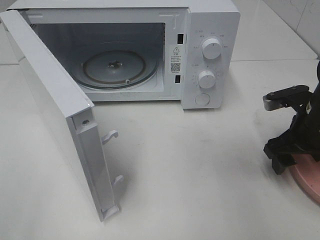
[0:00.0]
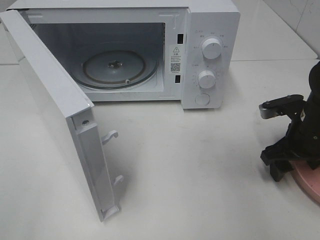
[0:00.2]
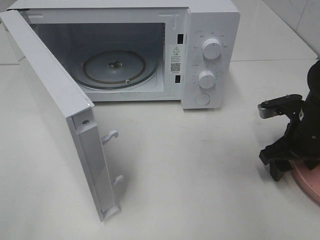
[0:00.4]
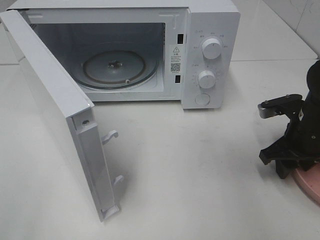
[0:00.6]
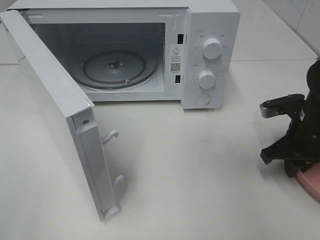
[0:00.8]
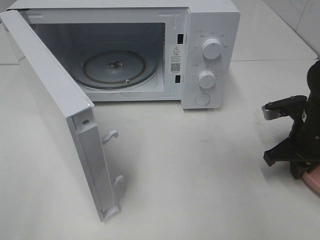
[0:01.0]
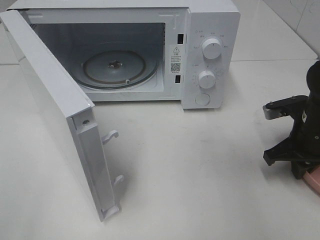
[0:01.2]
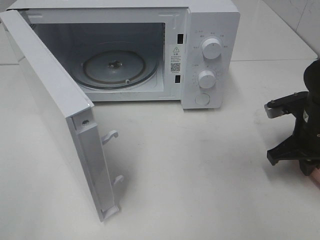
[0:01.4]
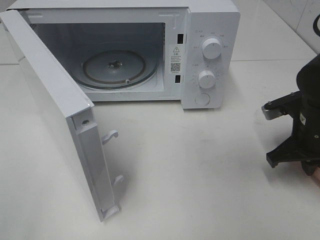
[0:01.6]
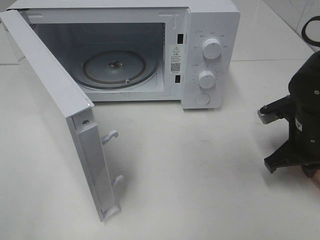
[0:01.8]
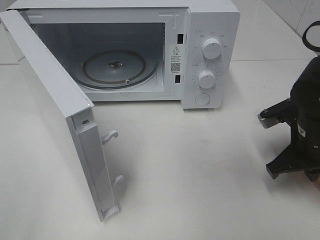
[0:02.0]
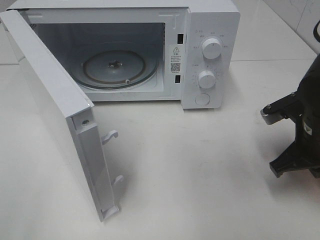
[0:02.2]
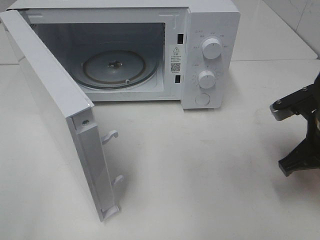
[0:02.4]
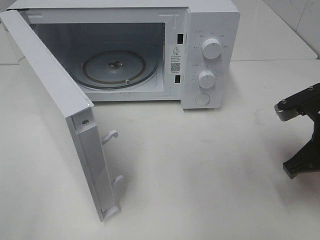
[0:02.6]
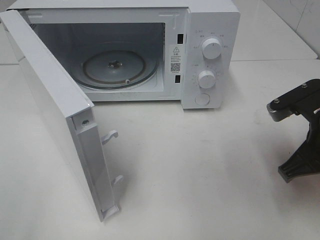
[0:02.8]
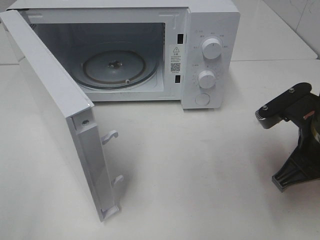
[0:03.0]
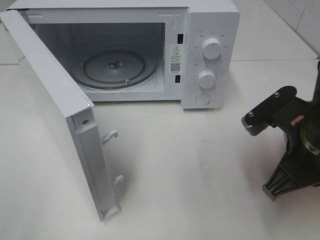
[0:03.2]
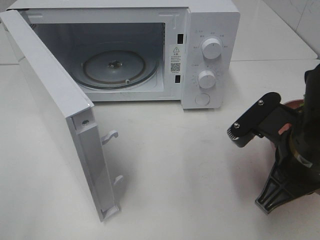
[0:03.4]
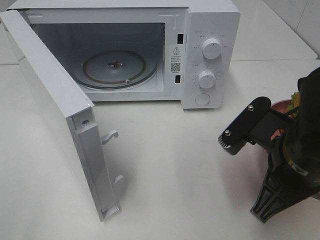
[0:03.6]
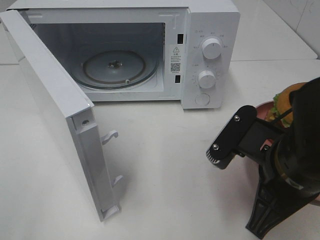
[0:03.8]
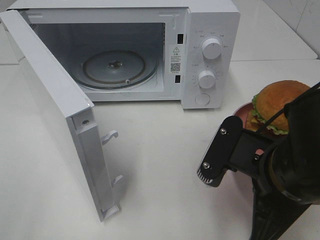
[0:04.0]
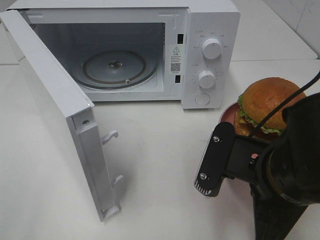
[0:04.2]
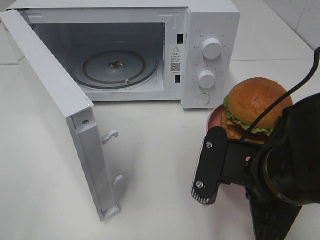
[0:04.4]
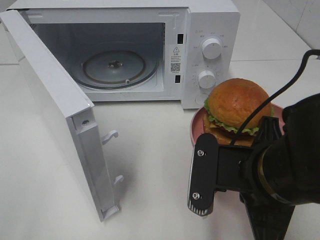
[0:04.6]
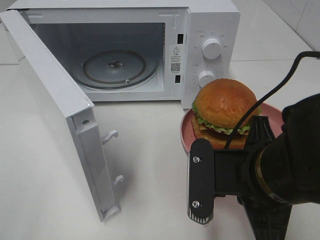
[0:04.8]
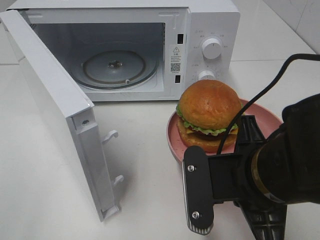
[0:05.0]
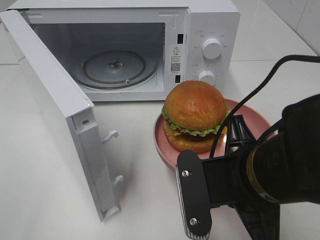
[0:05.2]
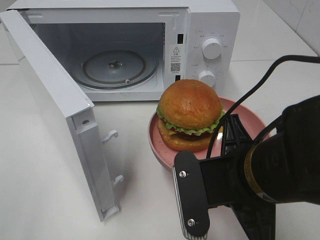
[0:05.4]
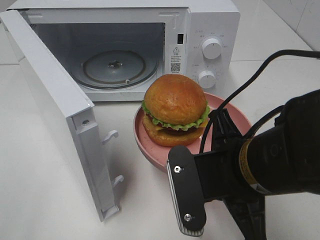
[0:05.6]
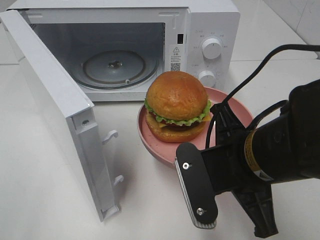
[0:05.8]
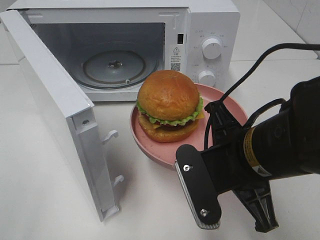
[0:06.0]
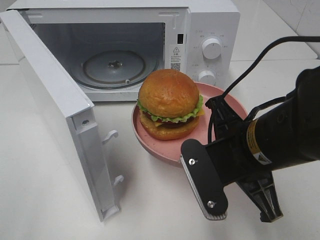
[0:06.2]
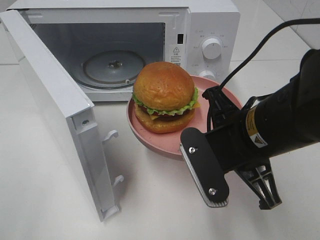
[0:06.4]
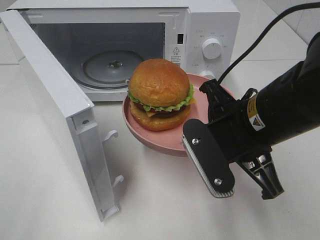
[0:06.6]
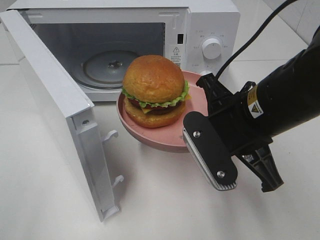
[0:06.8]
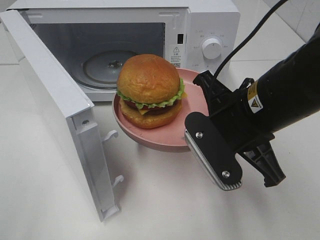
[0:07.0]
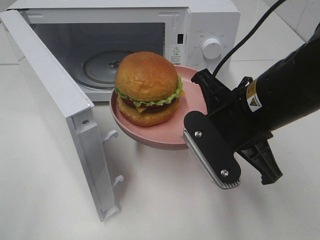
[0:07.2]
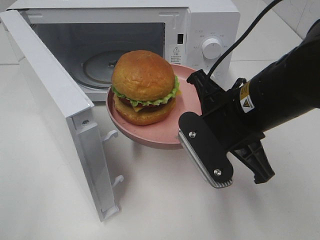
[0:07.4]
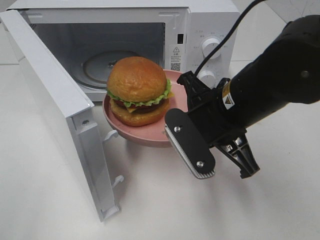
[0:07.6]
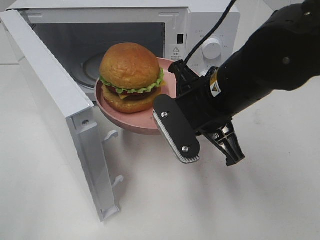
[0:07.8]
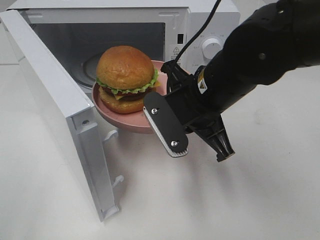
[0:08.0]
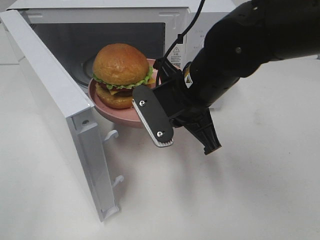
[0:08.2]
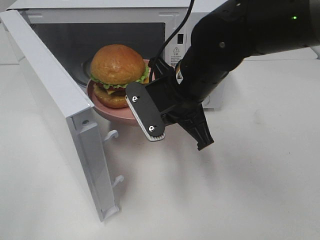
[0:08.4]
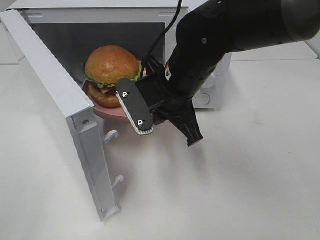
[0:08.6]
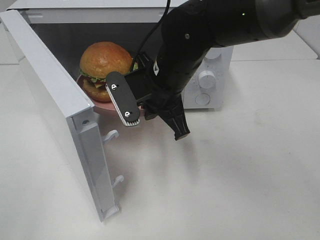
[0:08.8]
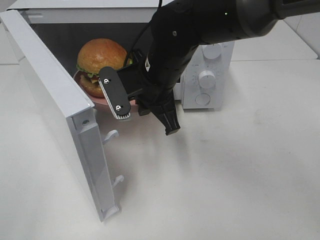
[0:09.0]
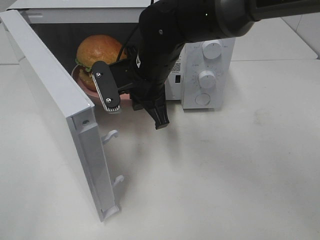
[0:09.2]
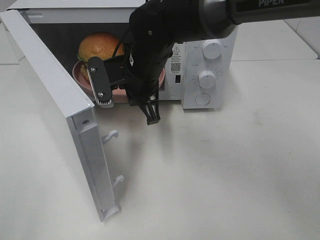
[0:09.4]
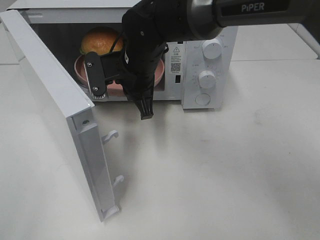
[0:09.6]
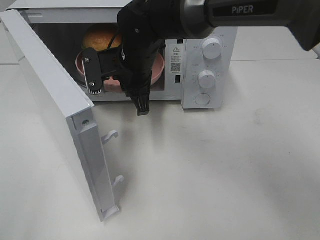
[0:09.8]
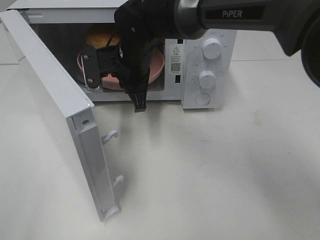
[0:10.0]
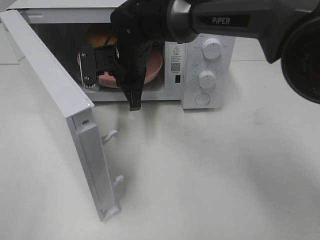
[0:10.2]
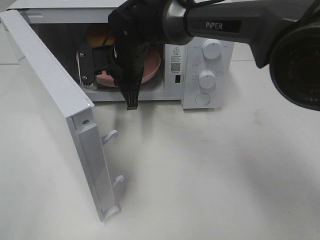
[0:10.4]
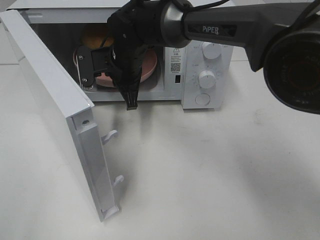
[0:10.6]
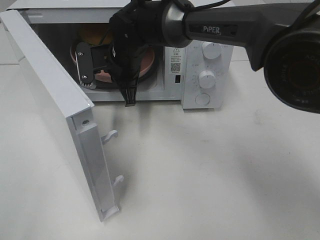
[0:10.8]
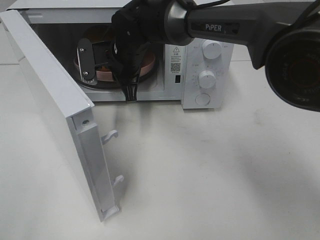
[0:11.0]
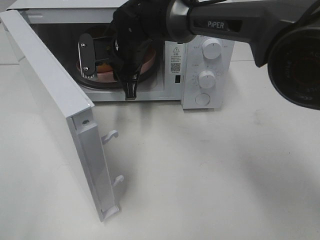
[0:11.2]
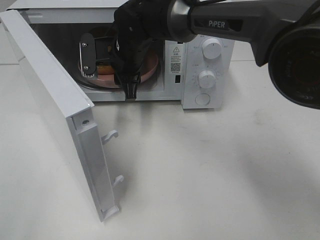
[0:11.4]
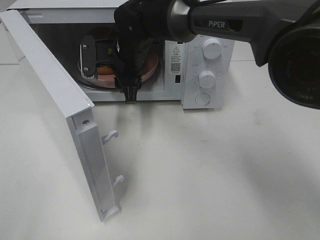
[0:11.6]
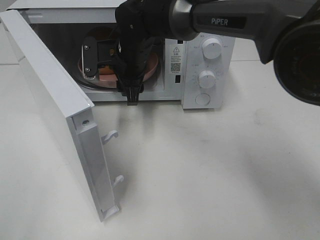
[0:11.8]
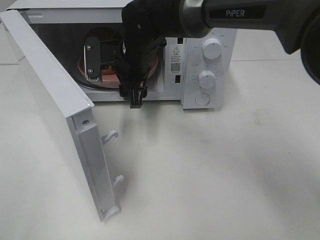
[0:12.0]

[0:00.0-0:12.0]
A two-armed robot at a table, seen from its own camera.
Task of the whole recording: Heat the burger.
0:00.0 to 0:01.6: The right gripper closes.
0:01.6 to 0:03.0: The right gripper heads backward and upward, covering approximately 10 cm.
0:03.0 to 0:04.4: The right gripper travels to the left and backward by some 10 cm.
0:06.0 to 0:07.6: The right gripper shifts approximately 5 cm forward.
0:07.6 to 0:09.0: The right gripper goes roughly 15 cm forward and to the left.
0:09.0 to 0:10.4: The right gripper shifts roughly 10 cm forward and to the left.
0:10.4 to 0:12.0: The right gripper opens.

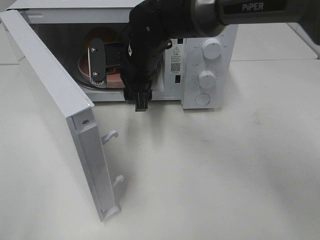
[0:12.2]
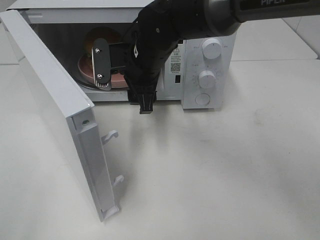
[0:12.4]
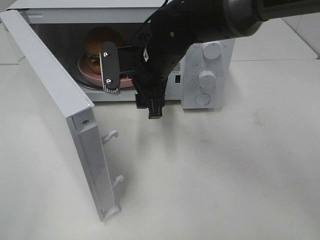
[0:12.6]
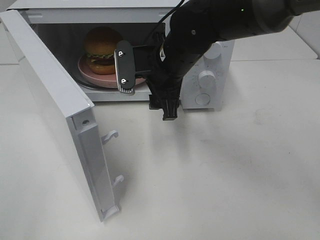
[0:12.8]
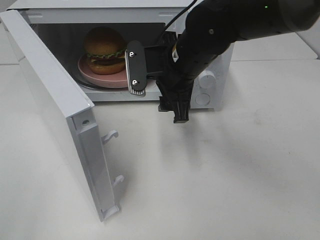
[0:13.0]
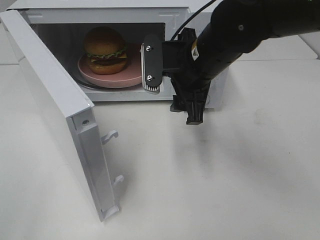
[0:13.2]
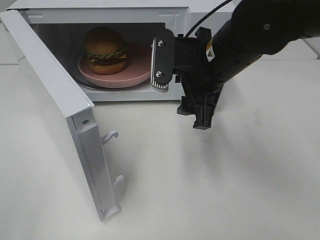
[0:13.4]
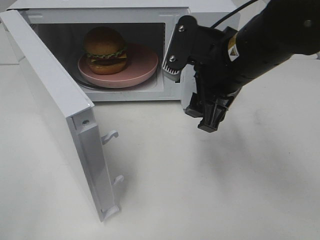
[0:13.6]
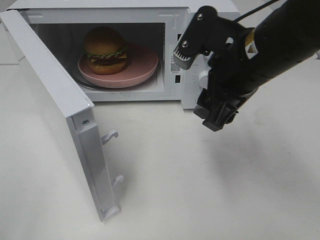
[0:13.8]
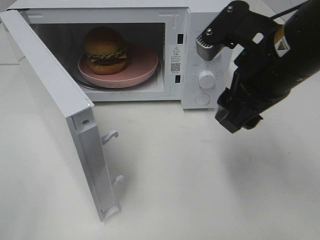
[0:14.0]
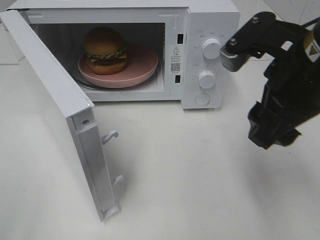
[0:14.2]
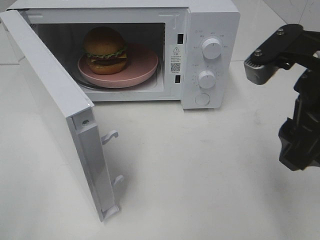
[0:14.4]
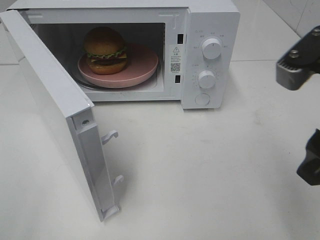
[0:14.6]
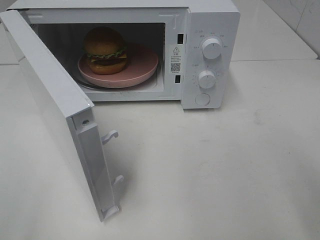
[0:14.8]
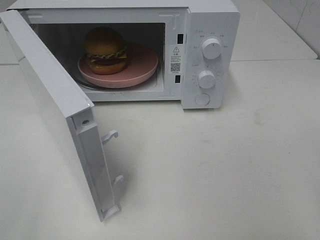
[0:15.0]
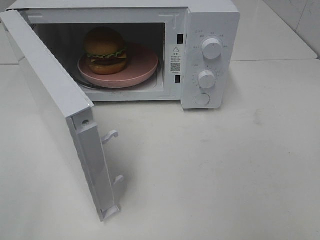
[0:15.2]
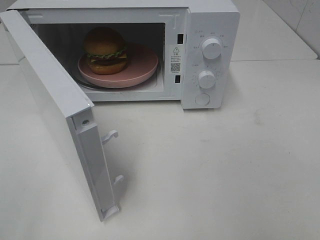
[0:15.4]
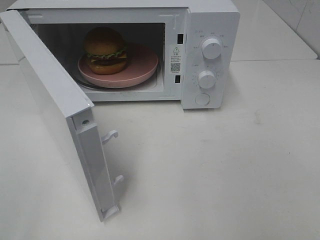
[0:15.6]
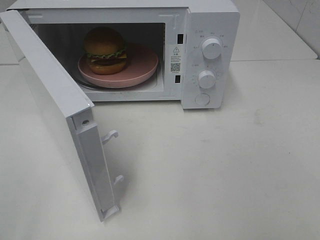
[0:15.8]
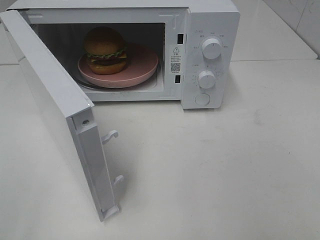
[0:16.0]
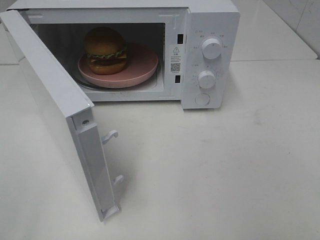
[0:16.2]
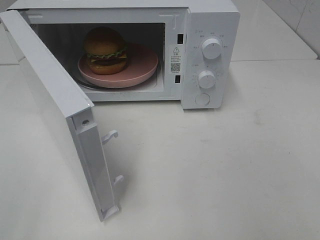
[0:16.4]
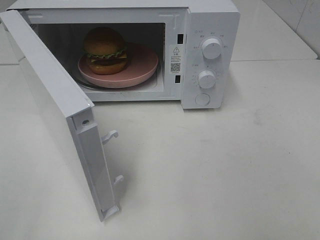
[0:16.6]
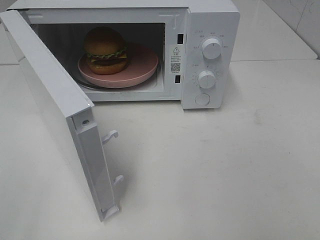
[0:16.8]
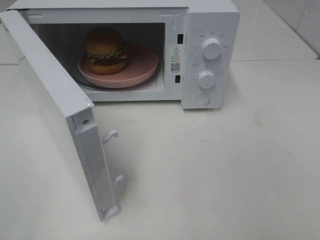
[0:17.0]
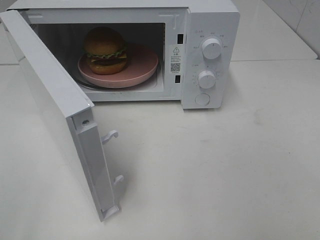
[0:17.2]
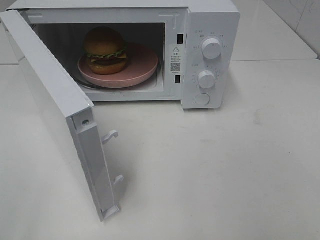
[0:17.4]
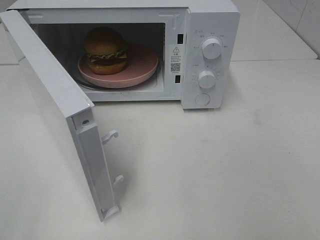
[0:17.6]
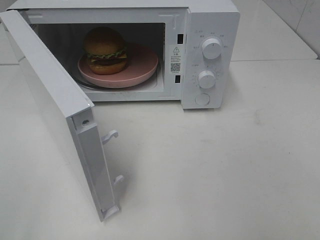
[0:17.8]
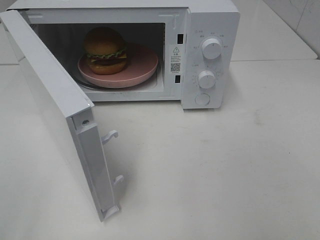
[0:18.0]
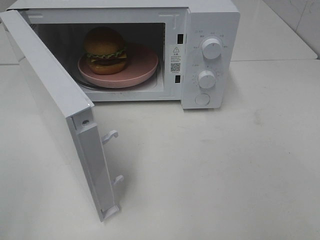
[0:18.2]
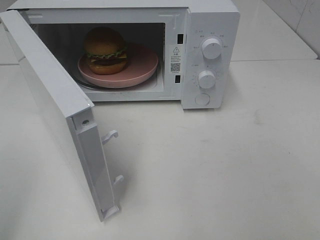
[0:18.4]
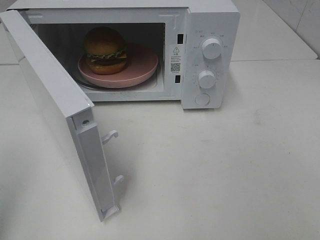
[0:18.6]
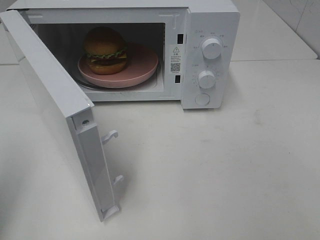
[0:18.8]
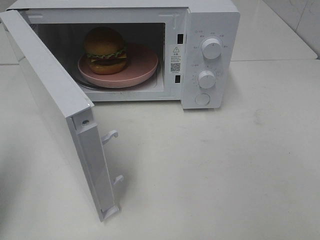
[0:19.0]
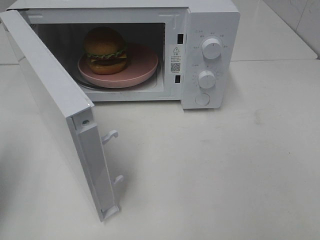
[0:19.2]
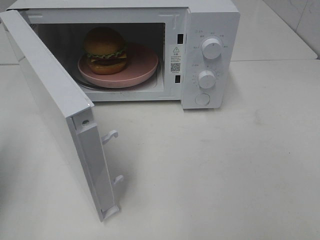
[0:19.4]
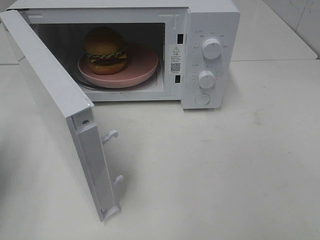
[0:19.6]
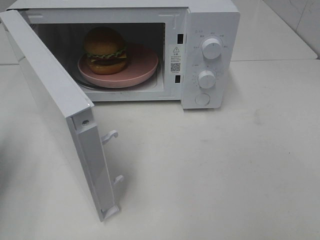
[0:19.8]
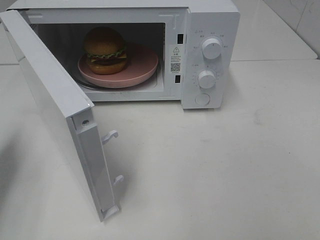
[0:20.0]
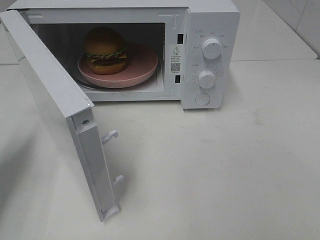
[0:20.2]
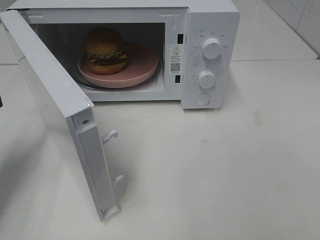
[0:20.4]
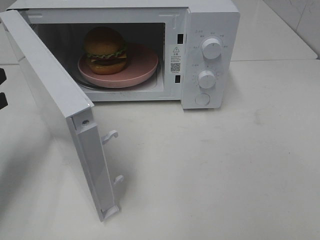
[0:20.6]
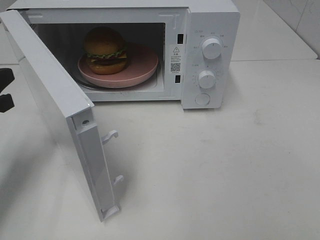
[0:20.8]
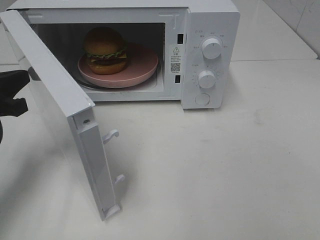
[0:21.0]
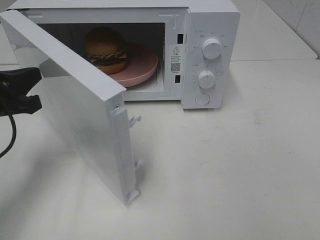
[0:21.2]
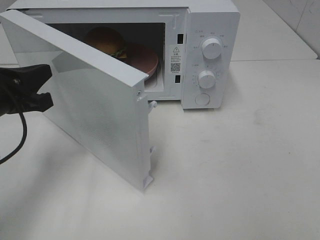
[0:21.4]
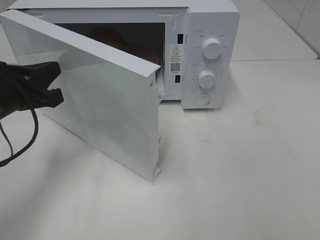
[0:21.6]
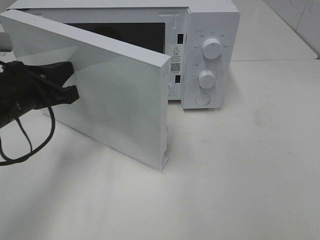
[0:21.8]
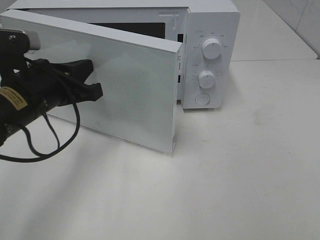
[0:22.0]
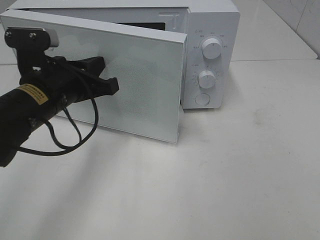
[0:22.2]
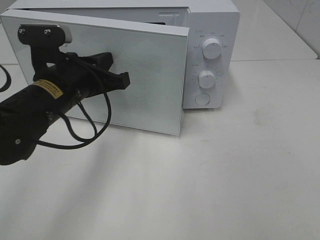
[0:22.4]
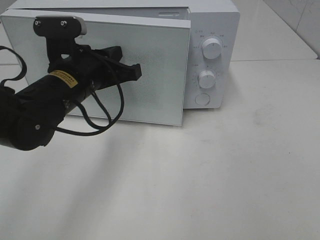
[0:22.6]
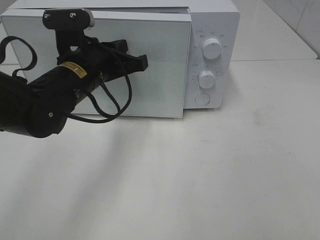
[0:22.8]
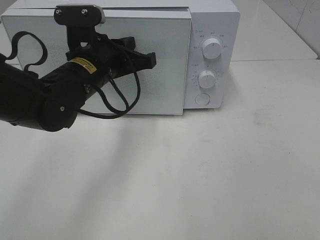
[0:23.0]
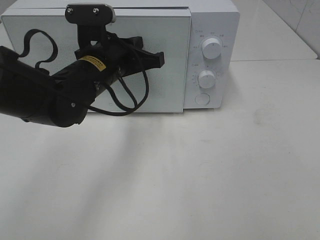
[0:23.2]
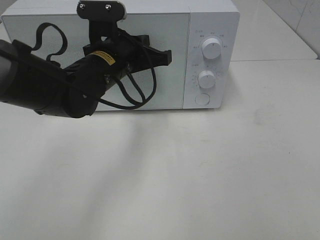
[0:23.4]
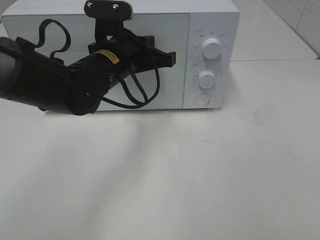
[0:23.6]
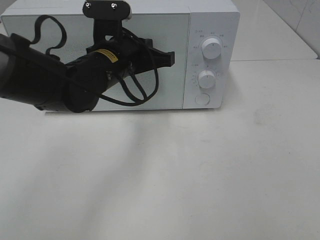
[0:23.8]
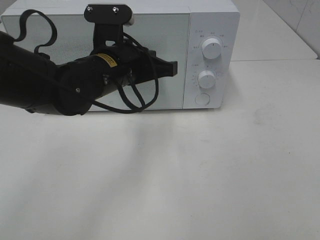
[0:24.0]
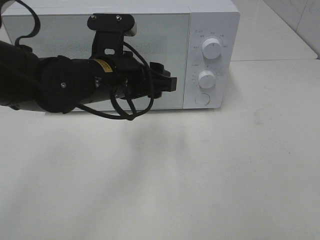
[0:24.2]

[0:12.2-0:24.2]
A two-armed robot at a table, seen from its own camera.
Task of the whole recording: Heat the burger.
0:12.2 to 0:13.8: The right gripper goes roughly 20 cm to the right, backward and upward.
0:13.8 to 0:15.2: The right gripper is displaced backward and to the right by about 25 cm.
0:18.2 to 0:19.8: The left gripper heads forward and downward, covering some 20 cm, and closes its fingers.
0:19.8 to 0:21.2: The left gripper moves to the right, approximately 10 cm.
0:21.2 to 0:22.6: The left gripper travels to the right by some 15 cm.
0:22.6 to 0:24.2: The left gripper changes place by roughly 5 cm, and opens.
